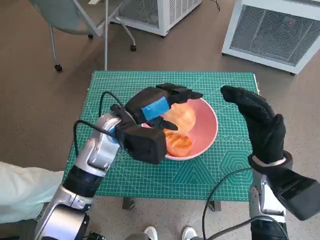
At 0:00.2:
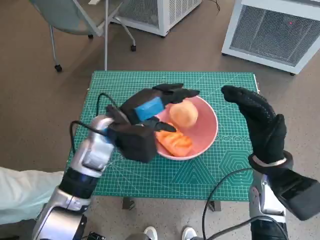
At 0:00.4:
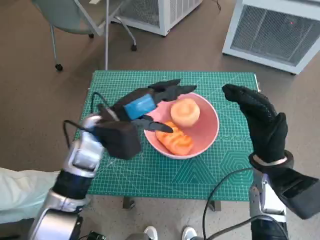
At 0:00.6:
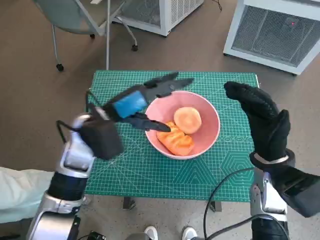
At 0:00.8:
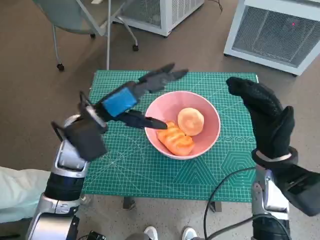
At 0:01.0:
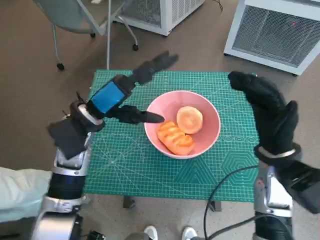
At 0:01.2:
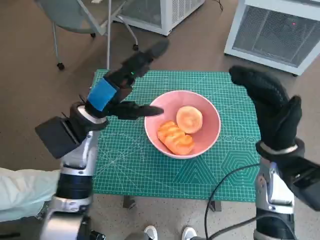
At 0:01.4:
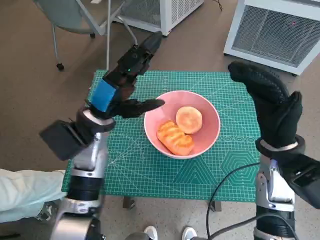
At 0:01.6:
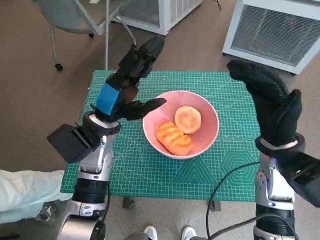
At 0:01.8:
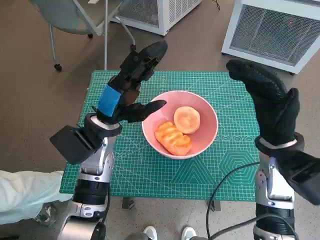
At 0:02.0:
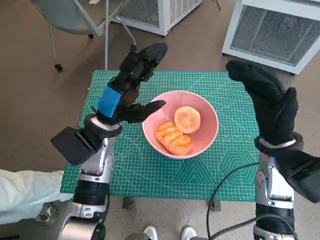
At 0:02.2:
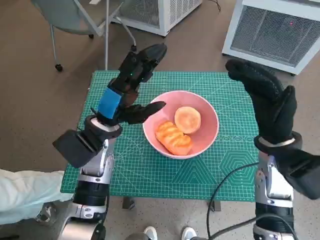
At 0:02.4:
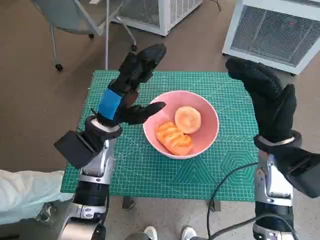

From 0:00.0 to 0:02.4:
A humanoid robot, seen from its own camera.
Task of the whole recording: Push the bowl into the center of the table and put the bread into the bowl.
From 0:00.0 to 0:01.2: The left hand moves to the left, some 5 cm.
